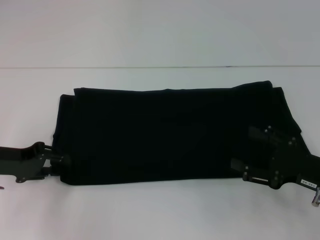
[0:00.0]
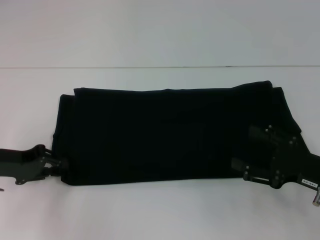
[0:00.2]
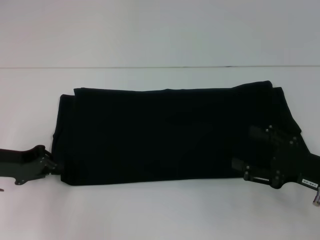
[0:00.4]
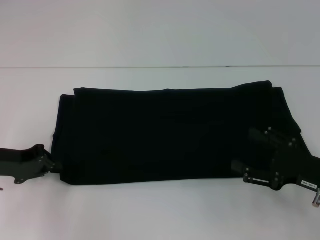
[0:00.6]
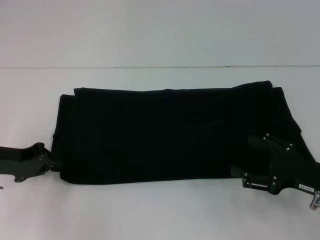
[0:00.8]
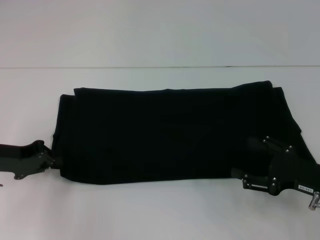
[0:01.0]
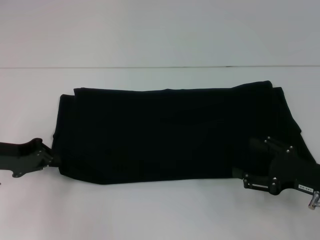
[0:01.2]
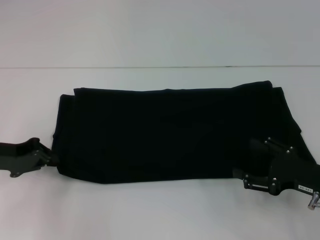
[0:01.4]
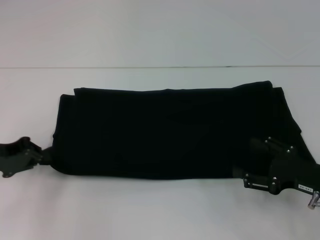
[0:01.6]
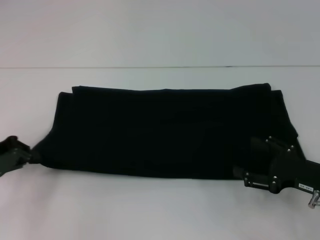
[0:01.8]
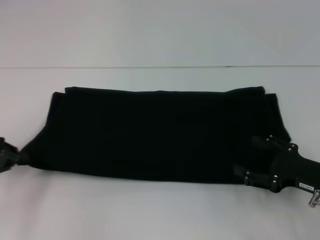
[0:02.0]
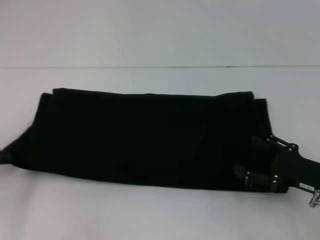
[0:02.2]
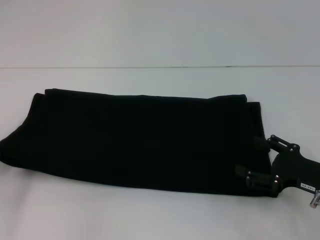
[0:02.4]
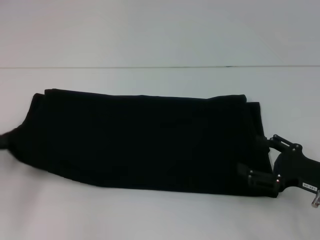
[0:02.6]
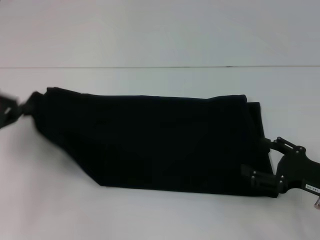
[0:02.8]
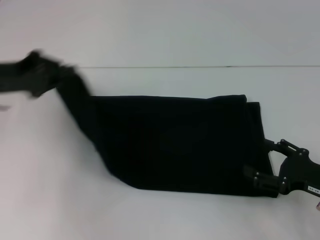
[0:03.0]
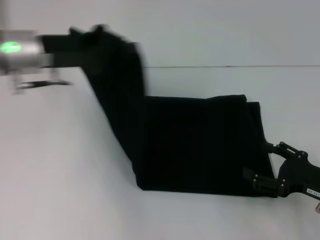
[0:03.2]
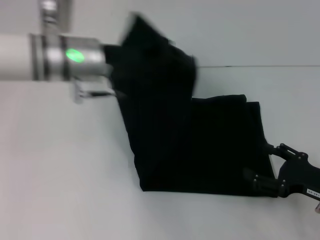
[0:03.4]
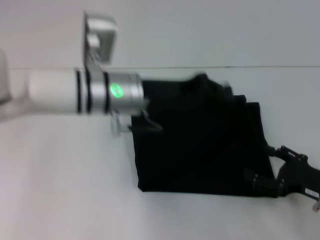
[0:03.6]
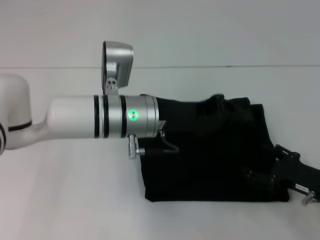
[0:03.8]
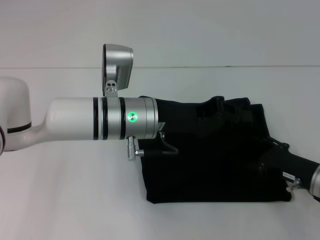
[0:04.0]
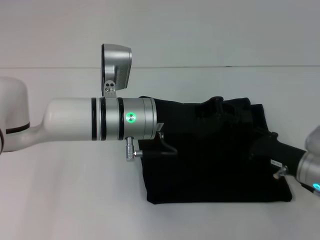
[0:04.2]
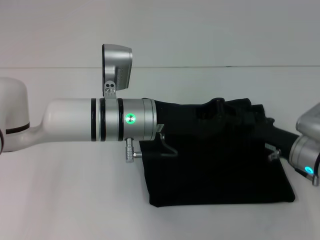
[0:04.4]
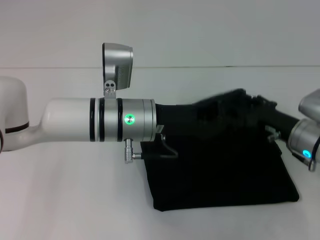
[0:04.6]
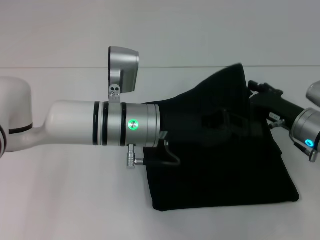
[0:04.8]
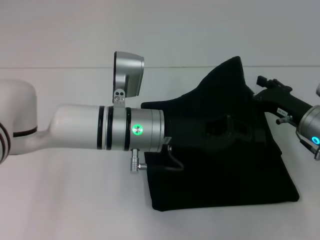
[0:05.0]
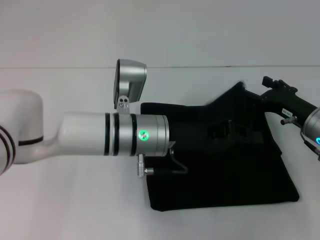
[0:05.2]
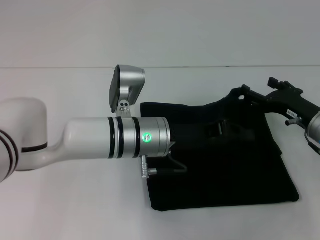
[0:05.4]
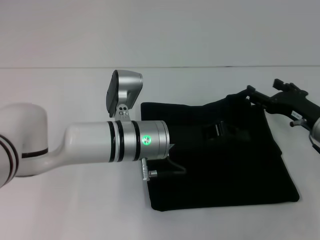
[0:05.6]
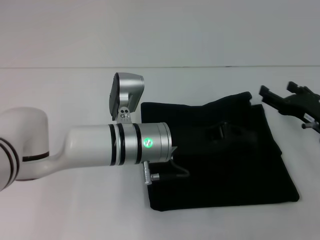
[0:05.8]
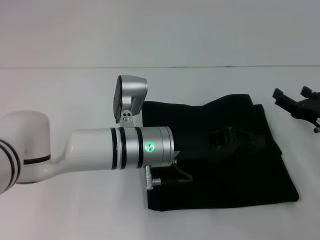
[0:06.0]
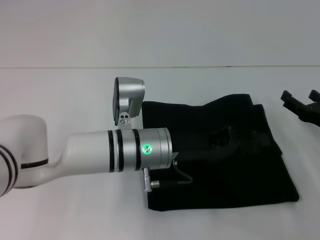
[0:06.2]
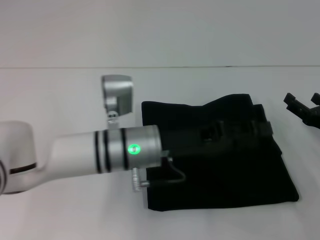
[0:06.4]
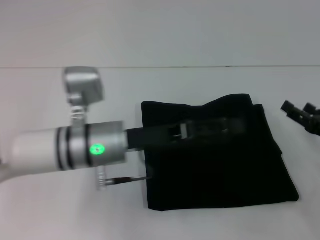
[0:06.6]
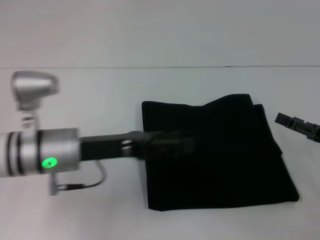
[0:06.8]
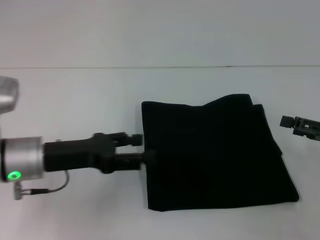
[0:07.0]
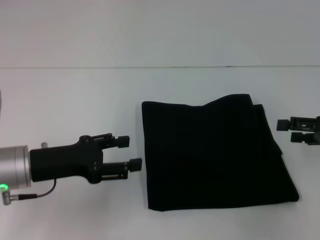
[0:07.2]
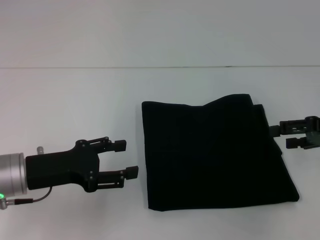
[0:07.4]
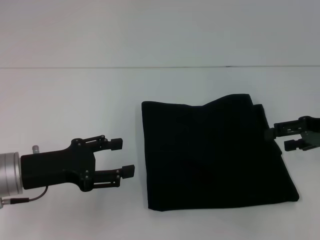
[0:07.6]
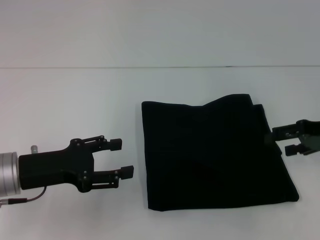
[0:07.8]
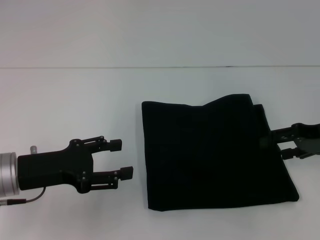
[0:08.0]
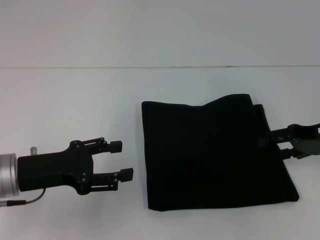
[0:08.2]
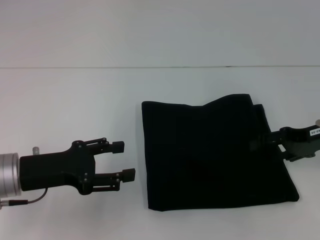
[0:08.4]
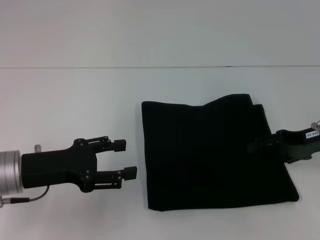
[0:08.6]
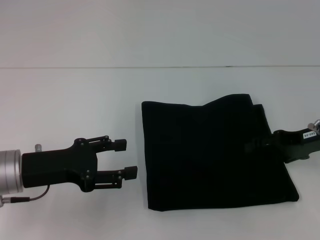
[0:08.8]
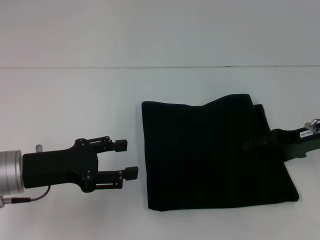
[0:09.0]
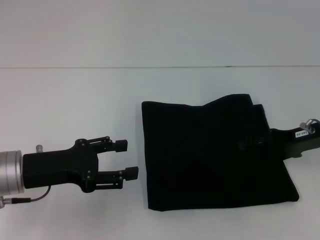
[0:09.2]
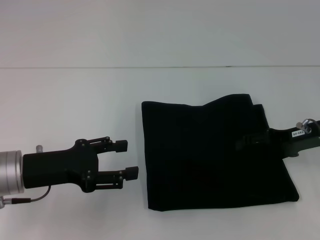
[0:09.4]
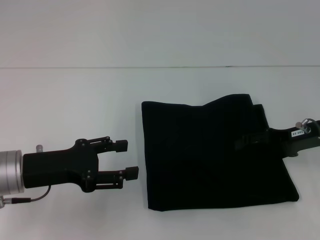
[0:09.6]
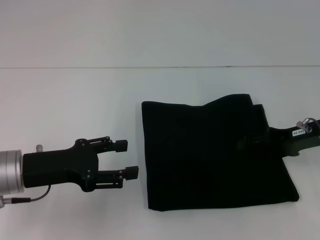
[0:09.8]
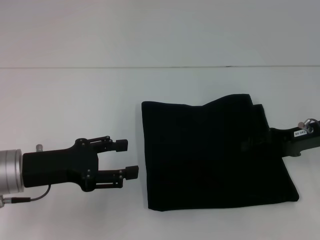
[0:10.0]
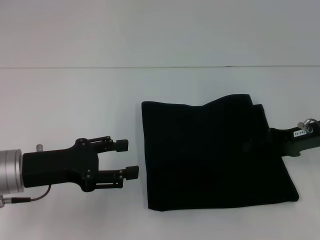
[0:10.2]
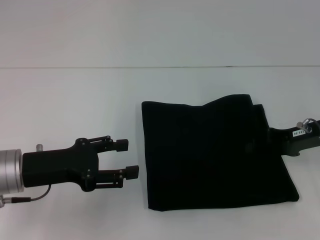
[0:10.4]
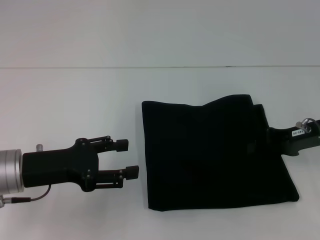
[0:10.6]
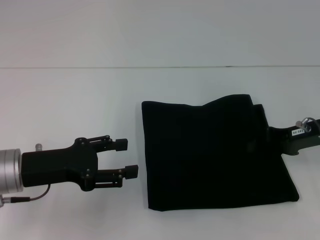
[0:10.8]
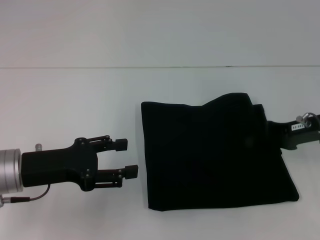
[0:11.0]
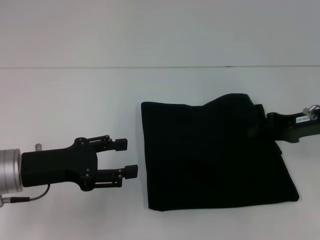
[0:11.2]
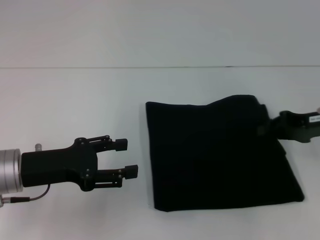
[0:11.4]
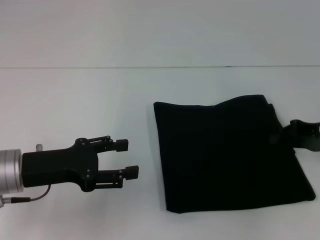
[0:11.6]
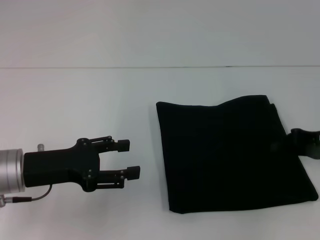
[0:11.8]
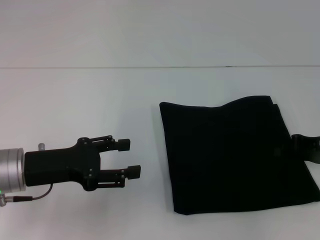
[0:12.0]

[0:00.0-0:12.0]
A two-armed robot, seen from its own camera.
Step, 0.0 to 5.8 s: Fold the clothes with your left hand.
0.0 to 1.6 s: The left gripper closes up.
1.6 to 3.0 s: The left gripper moves upward, roughly 10 cm, and reaches approximately 5 cm to the left, then returns.
3.0 to 4.4 s: The left gripper travels to the right by roughly 25 cm. The right gripper shifts about 10 cm forward and to the left.
4.4 to 6.0 s: The right gripper shifts approximately 5 cm to the right.
6.0 to 7.6 s: The left gripper travels to the left by approximately 20 cm, and opens its fingers. Meanwhile the right gripper shifts about 10 cm upward.
7.6 to 9.0 s: There are only small adjustments of the grippers.
9.0 to 10.4 s: The right gripper closes.
10.4 to 12.0 s: The right gripper shifts by roughly 5 cm, and closes its fingers.

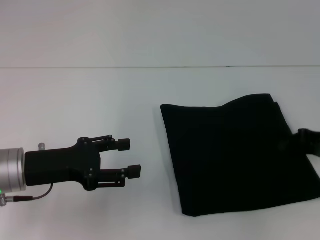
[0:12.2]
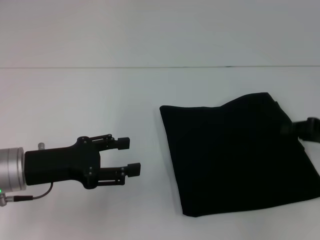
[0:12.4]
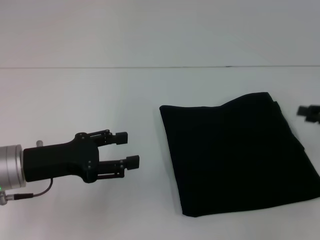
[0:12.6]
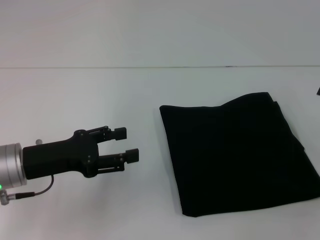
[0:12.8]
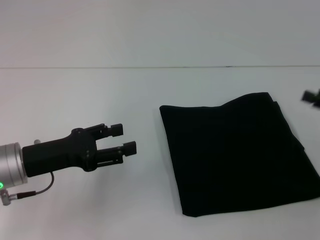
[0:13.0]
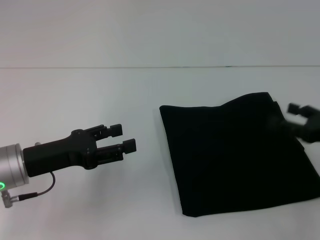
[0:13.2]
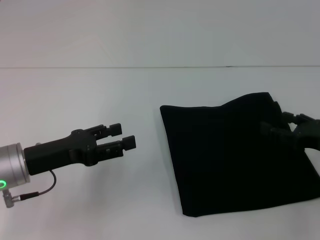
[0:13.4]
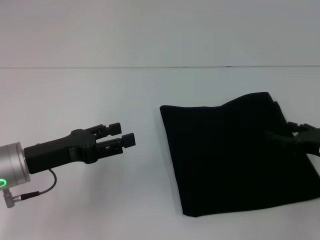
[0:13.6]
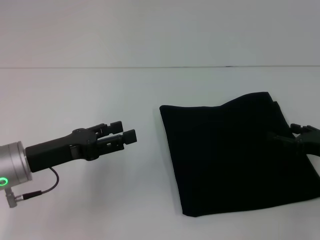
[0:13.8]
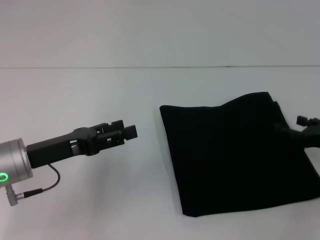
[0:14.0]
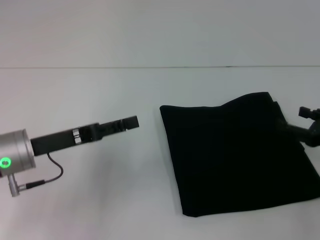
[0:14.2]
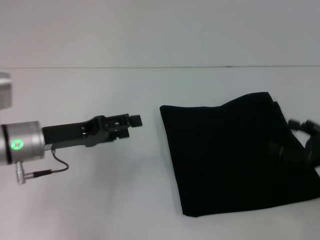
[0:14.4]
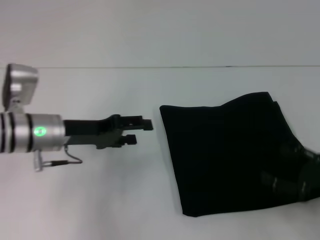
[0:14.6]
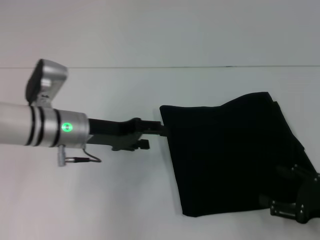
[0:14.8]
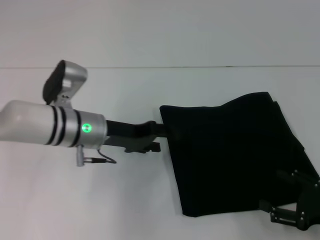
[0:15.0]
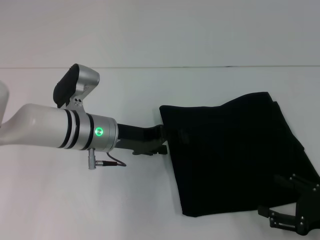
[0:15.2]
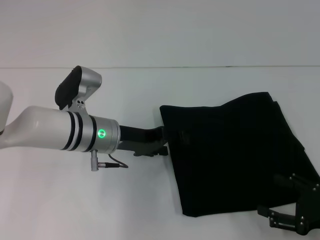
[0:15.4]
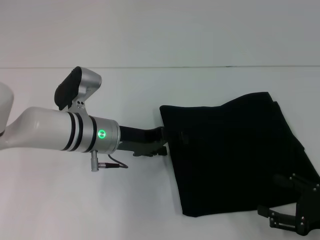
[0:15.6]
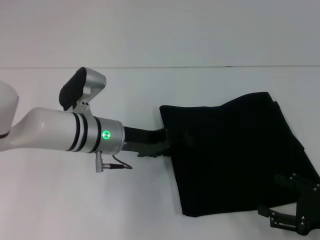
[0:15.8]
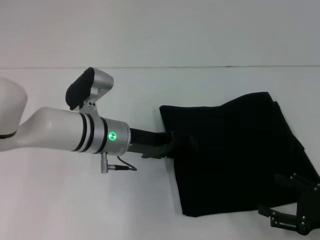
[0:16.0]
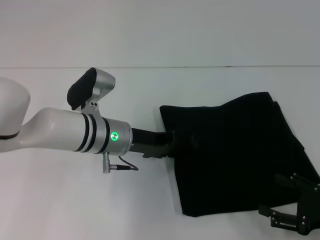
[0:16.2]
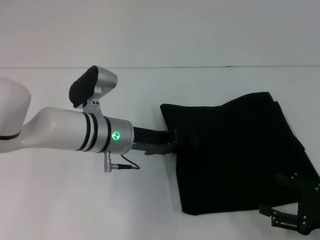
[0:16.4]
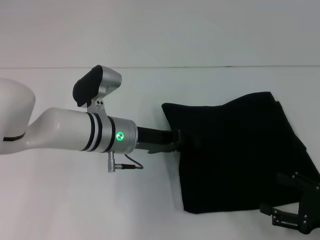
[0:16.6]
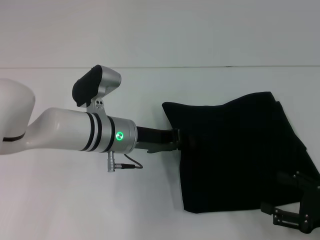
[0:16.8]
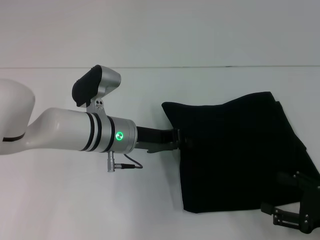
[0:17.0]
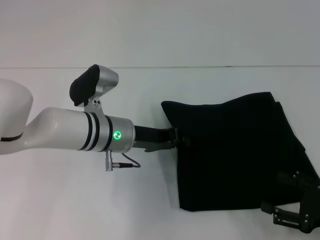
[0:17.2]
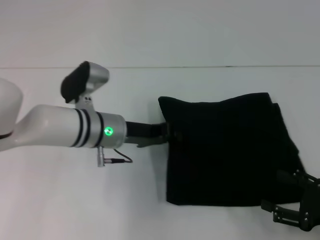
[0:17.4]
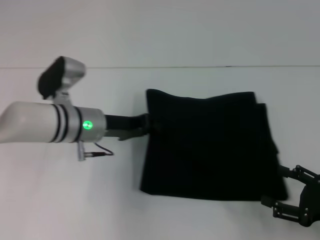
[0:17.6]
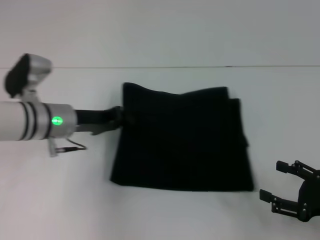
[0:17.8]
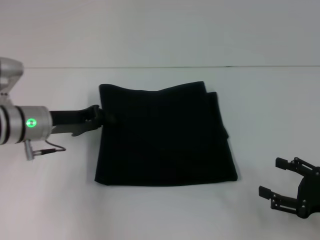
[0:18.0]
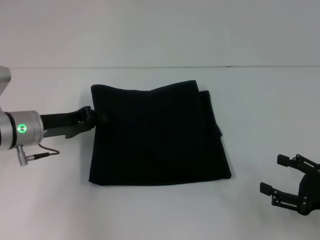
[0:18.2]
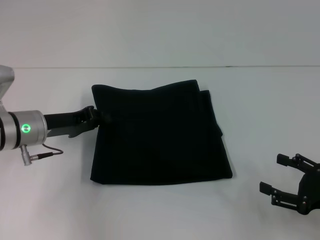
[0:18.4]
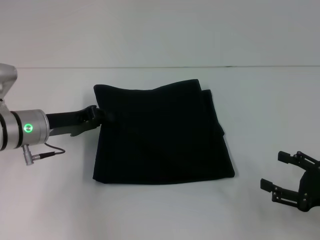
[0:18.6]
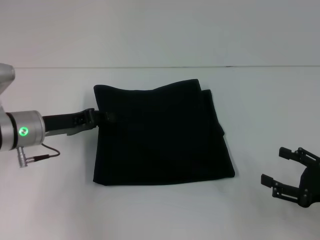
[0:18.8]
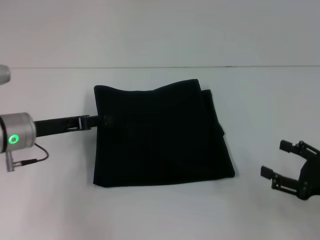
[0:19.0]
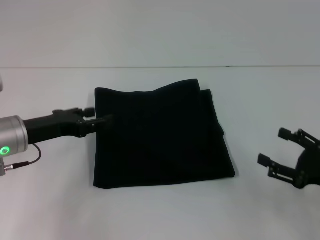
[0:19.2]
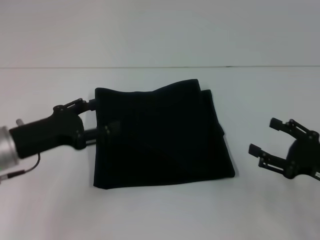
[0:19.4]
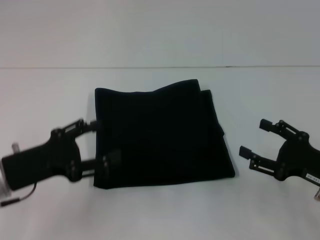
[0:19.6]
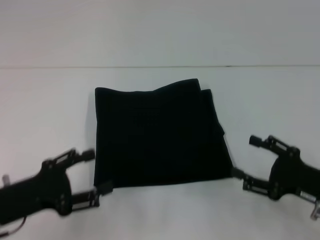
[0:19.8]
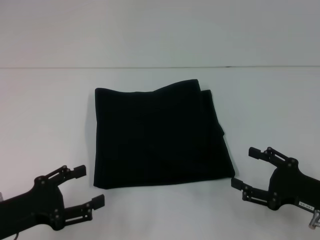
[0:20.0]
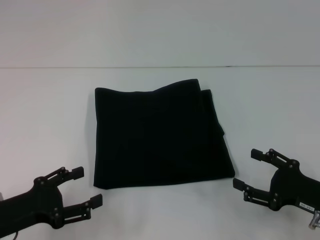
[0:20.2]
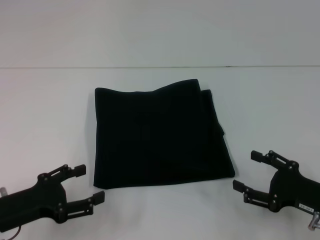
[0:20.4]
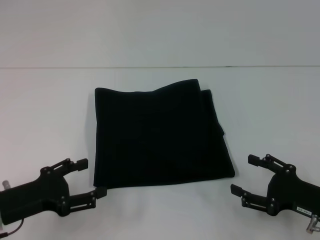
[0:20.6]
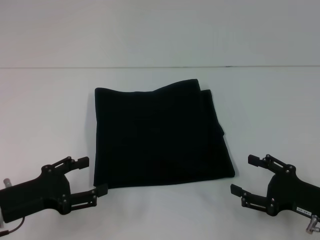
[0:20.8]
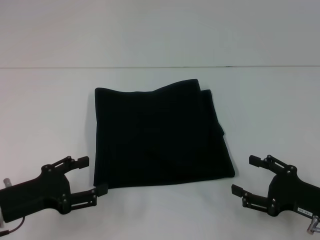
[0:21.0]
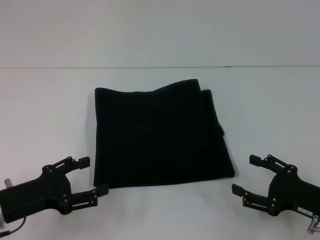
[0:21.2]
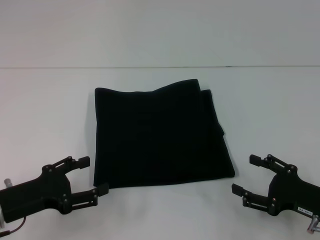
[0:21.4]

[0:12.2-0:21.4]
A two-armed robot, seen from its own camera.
12.2 to 13.8 s: The right gripper shifts by roughly 5 cm, and opens its fingers.
13.8 to 15.2 s: The right gripper travels backward by some 10 cm, while the left gripper goes roughly 15 cm to the right and forward.
15.2 to 16.8 s: The left gripper closes up.
16.8 to 18.4 s: The left gripper travels to the left by roughly 15 cm.
18.4 to 19.8 s: The left gripper goes roughly 15 cm backward, and opens its fingers.
19.8 to 21.4 s: There are only small adjustments of the grippers.

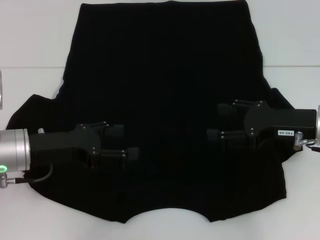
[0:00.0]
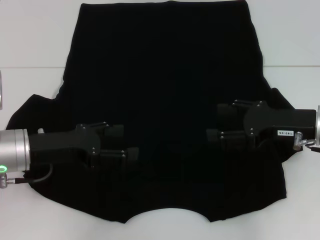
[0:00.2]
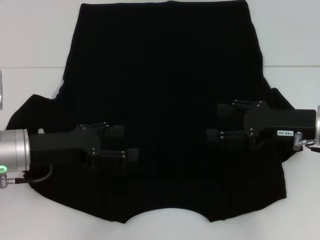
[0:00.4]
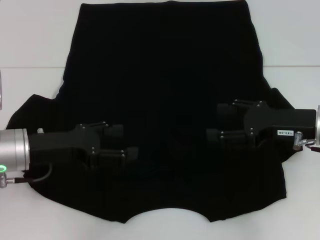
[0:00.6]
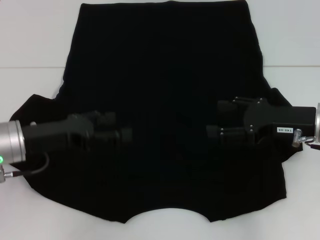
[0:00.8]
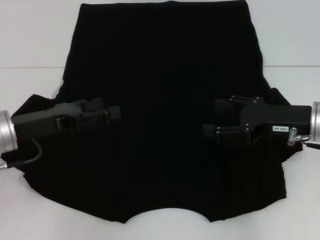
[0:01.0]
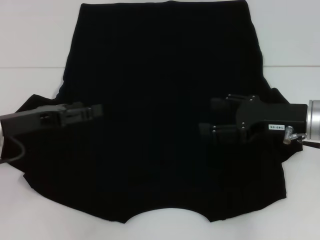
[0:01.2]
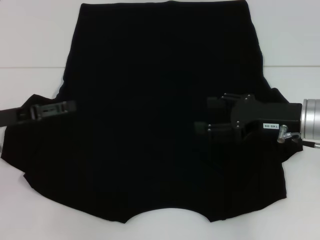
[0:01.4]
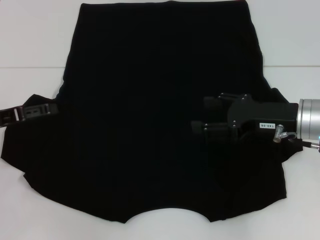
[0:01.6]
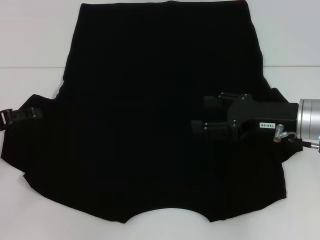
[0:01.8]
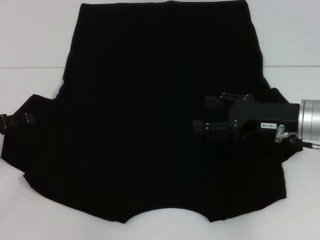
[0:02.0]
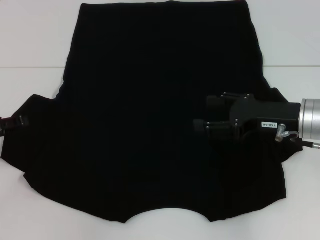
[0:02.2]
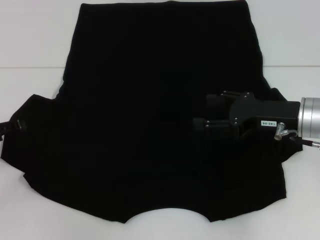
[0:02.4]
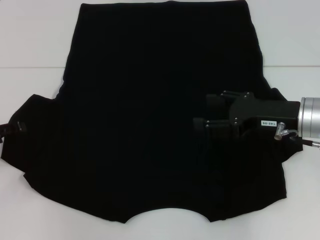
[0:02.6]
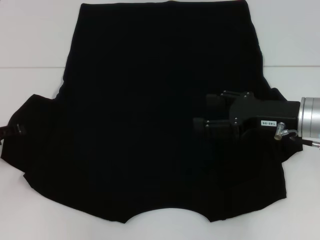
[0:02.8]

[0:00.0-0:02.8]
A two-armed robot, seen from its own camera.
0.0 to 1.4 s: The left gripper travels to the left by roughly 5 cm.
1.4 to 2.8 s: The left gripper shifts about 5 cm to the left.
